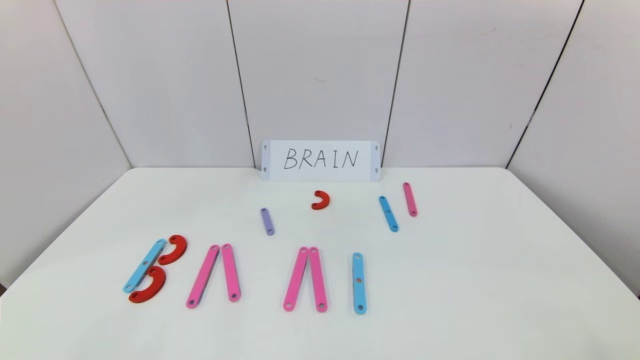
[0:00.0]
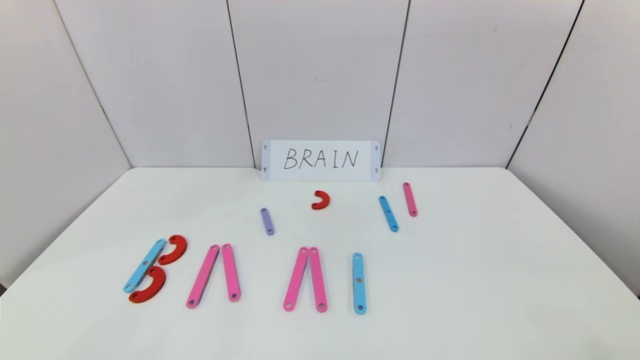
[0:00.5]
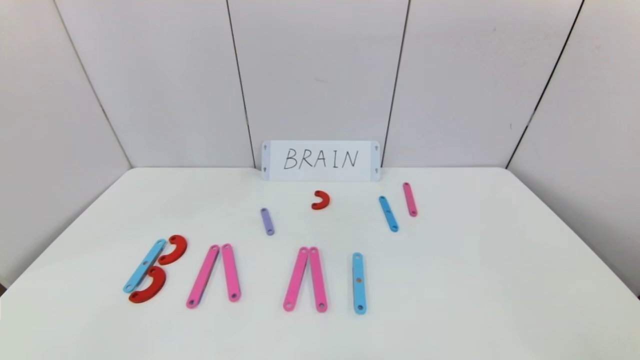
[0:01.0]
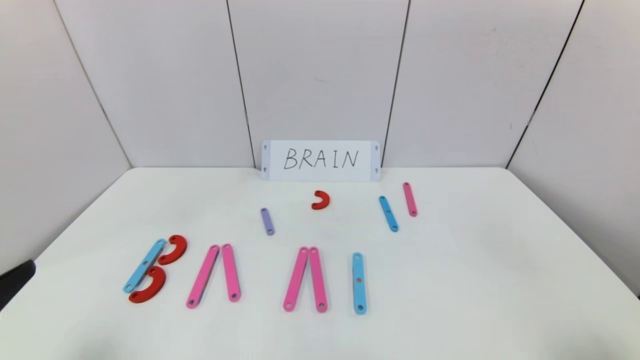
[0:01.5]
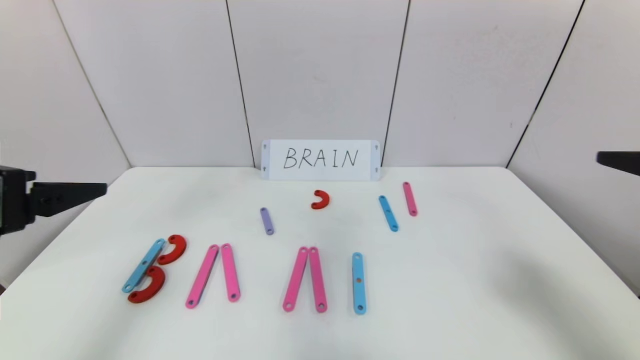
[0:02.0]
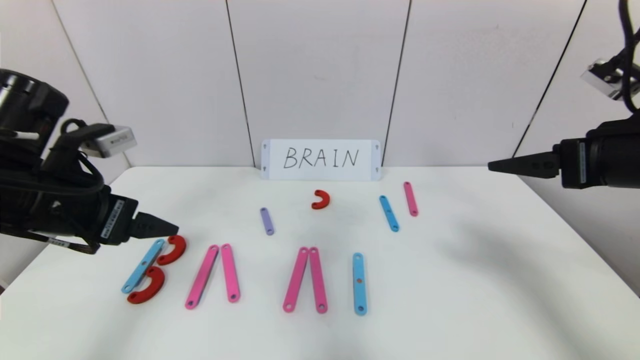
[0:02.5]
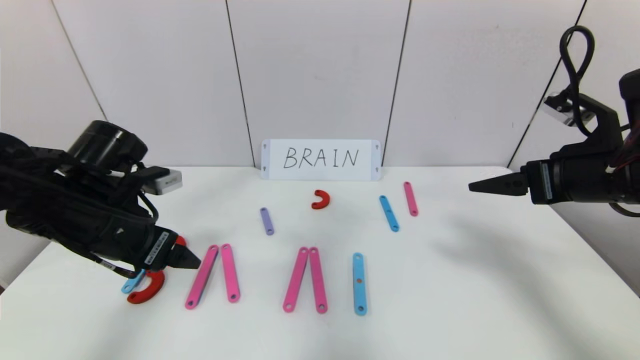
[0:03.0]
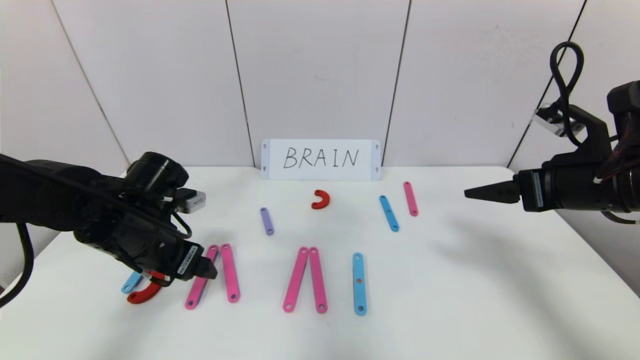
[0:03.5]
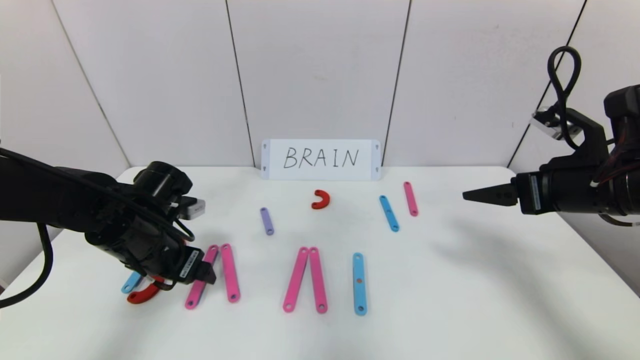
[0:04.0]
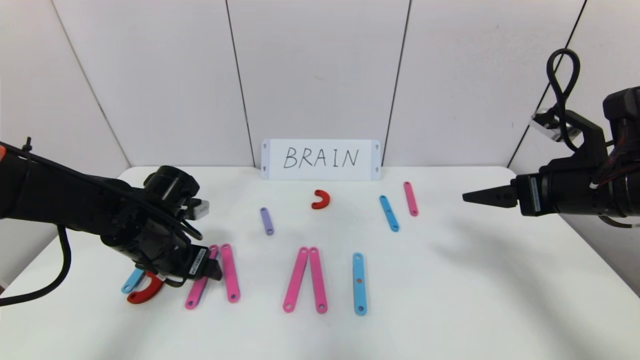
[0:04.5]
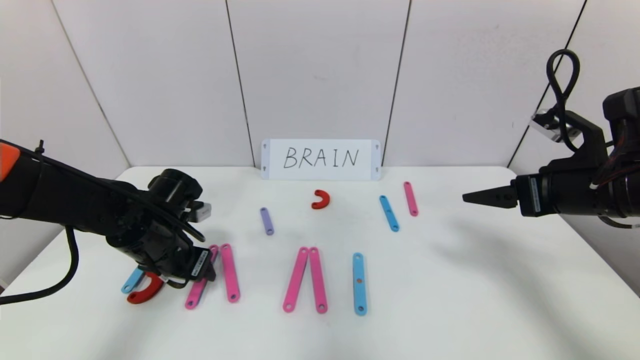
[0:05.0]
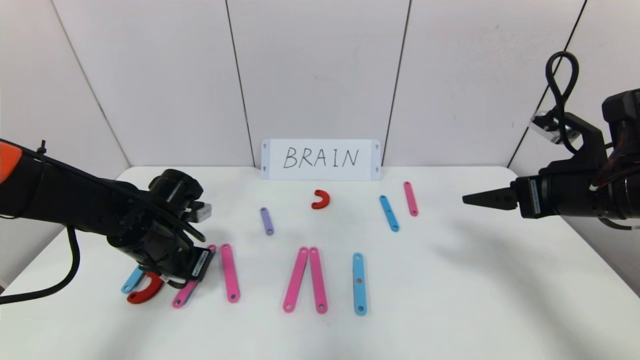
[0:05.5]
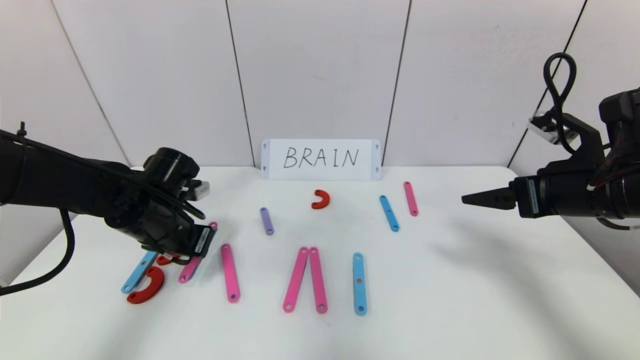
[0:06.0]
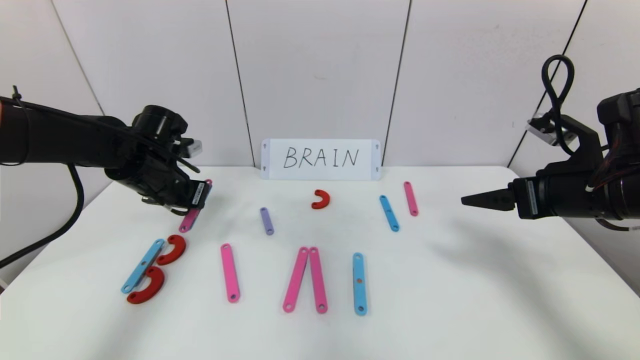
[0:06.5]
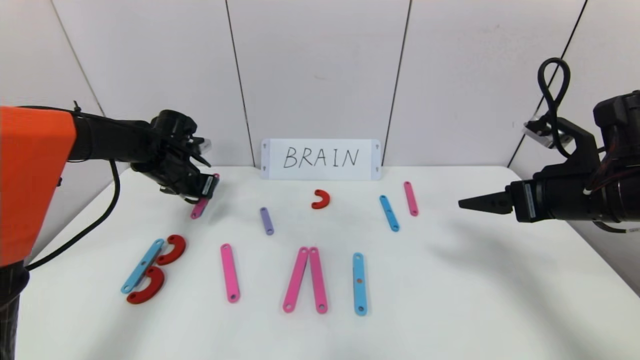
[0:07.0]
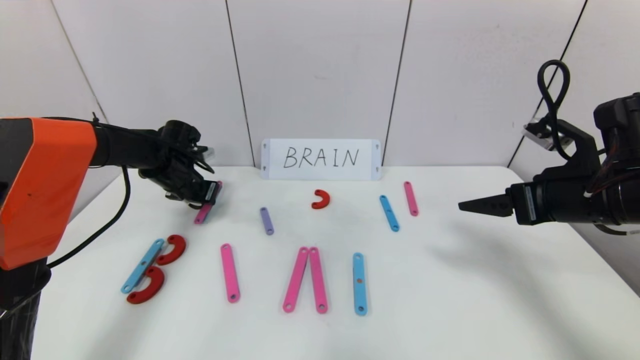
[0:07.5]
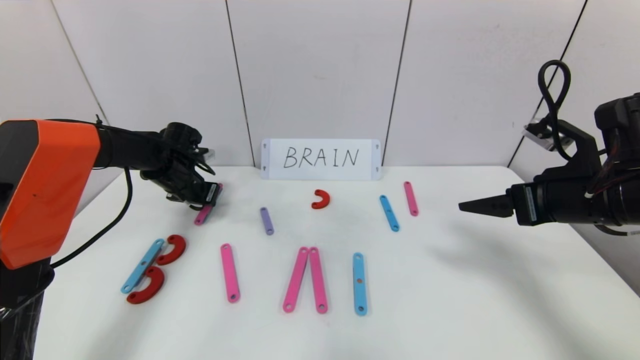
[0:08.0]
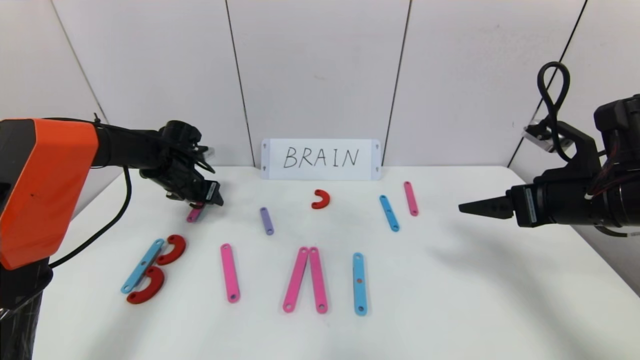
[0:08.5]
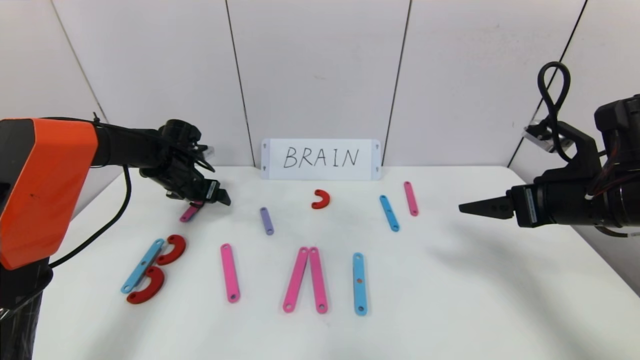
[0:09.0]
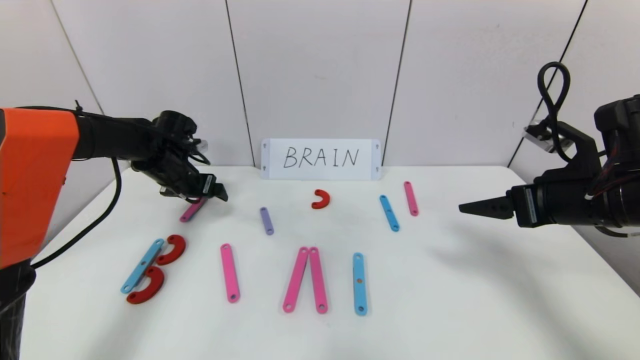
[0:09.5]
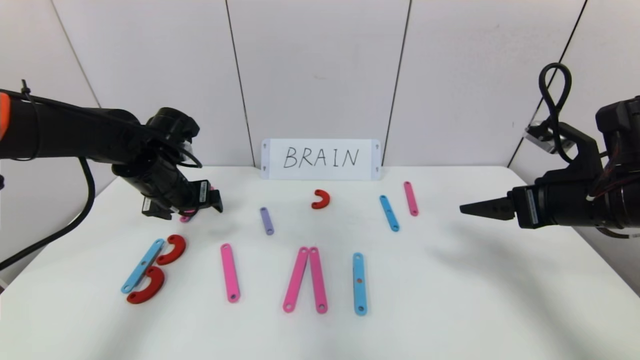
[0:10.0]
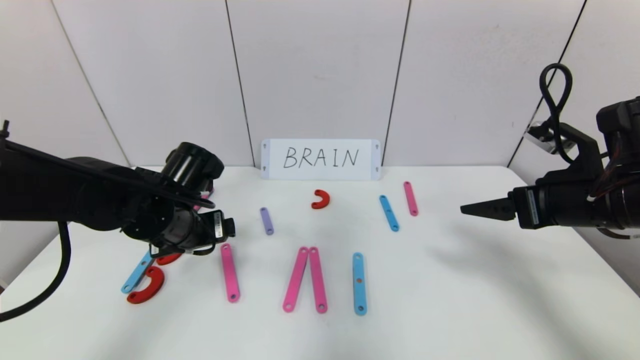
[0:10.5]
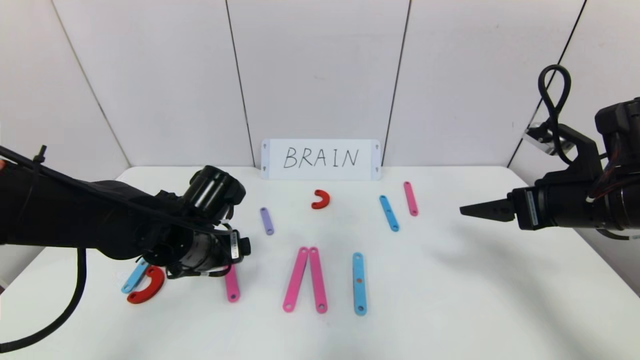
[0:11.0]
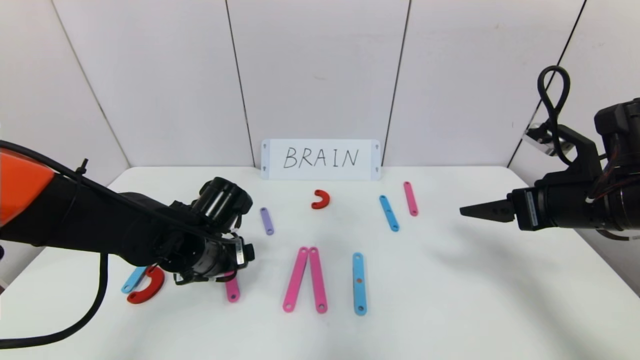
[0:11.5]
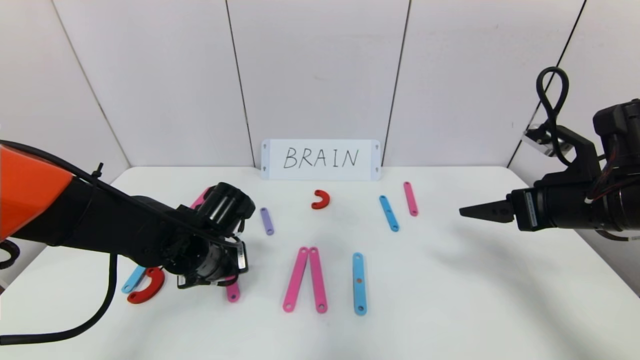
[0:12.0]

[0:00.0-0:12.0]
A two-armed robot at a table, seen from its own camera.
Task of the whole recording: rearrange the word baai as brain.
0:00.0 to 0:02.0: The grippers both shift upward and forward by approximately 30 cm.
0:02.0 to 0:04.0: The left gripper heads downward and forward, covering roughly 20 cm, while the right gripper goes about 15 cm forward and downward.
0:04.0 to 0:06.0: The left gripper closes.
0:06.0 to 0:08.0: The left gripper is displaced forward by roughly 15 cm.
0:08.0 to 0:10.0: The left gripper heads backward and upward, covering about 10 cm, and opens.
0:10.0 to 0:12.0: The left gripper is displaced downward, to the right and backward by about 15 cm, and closes its fingers.

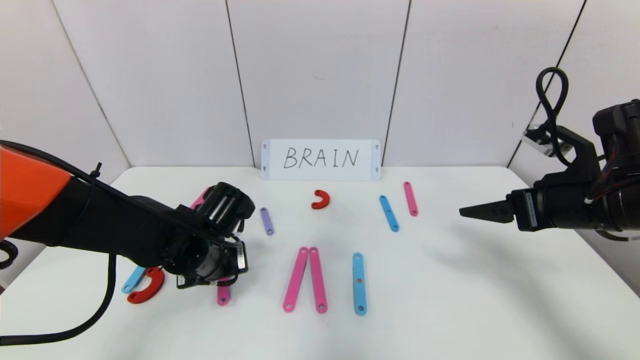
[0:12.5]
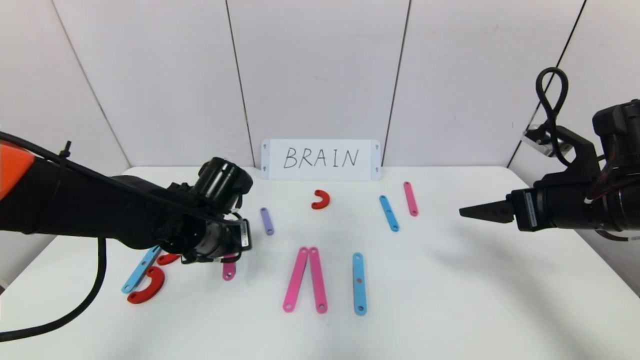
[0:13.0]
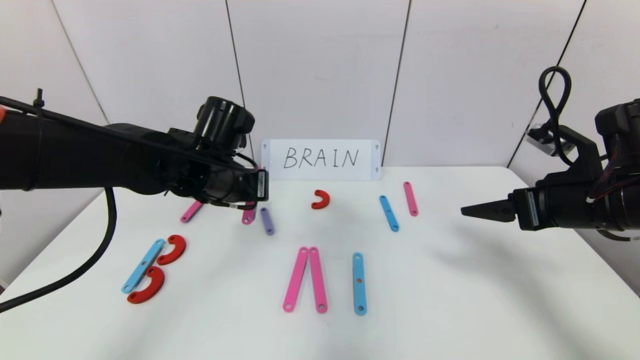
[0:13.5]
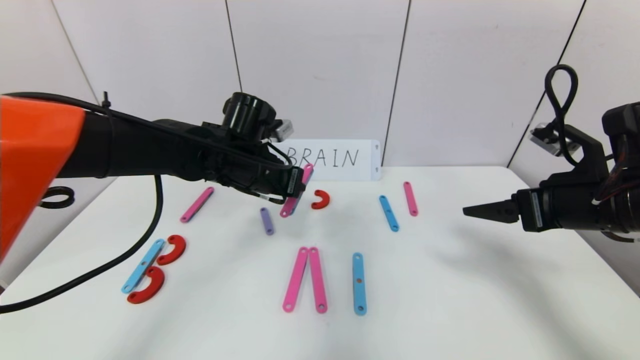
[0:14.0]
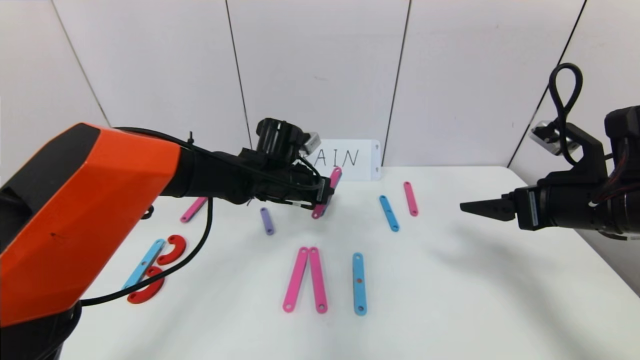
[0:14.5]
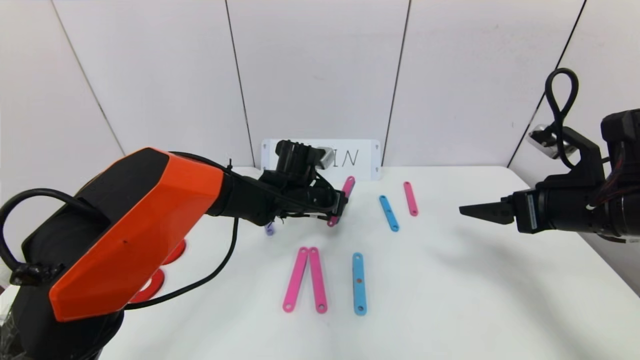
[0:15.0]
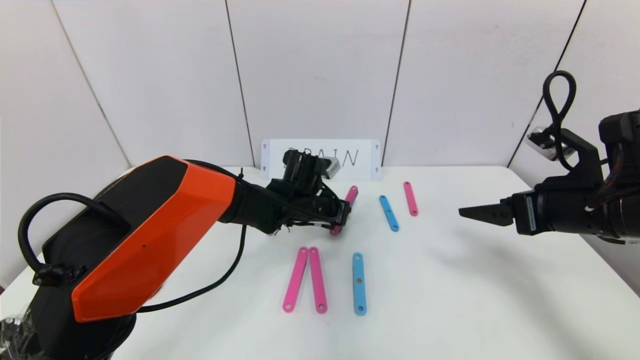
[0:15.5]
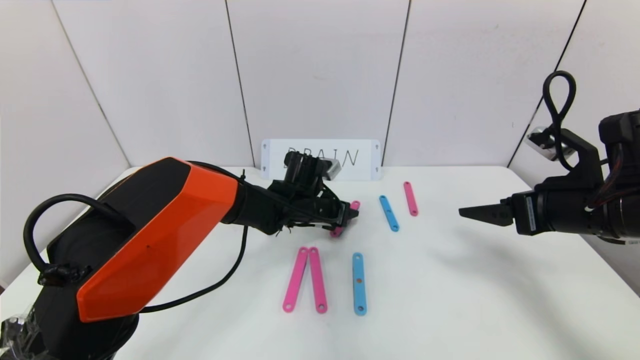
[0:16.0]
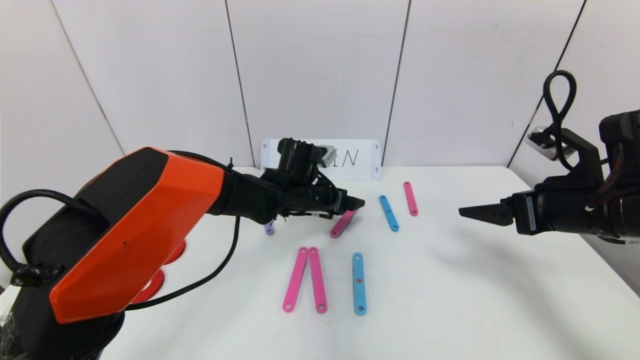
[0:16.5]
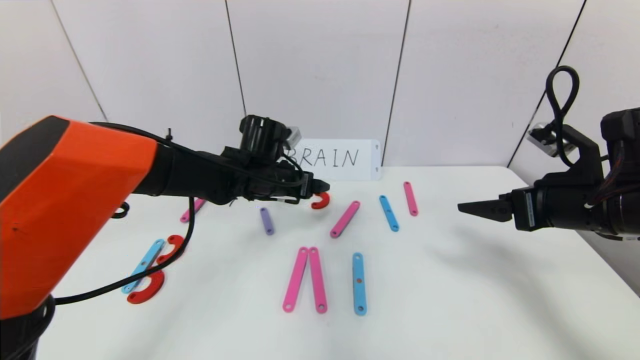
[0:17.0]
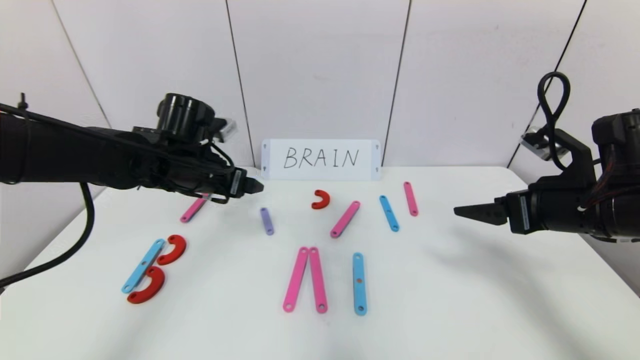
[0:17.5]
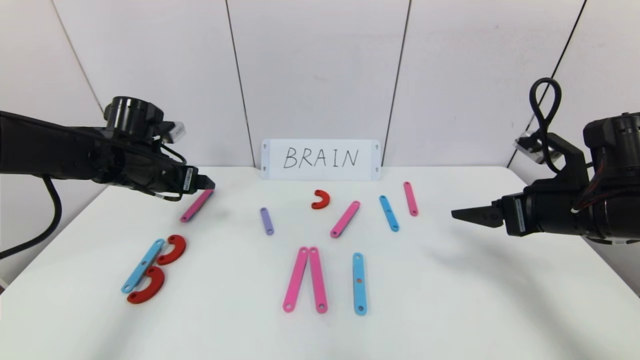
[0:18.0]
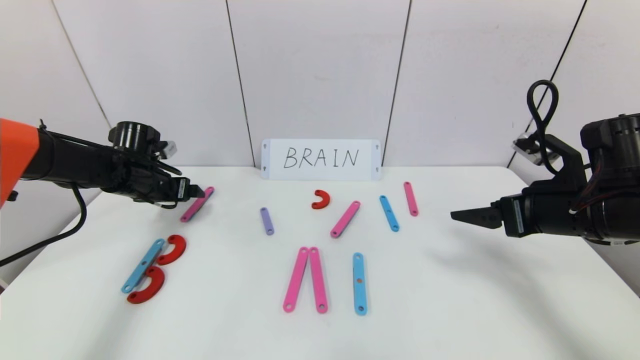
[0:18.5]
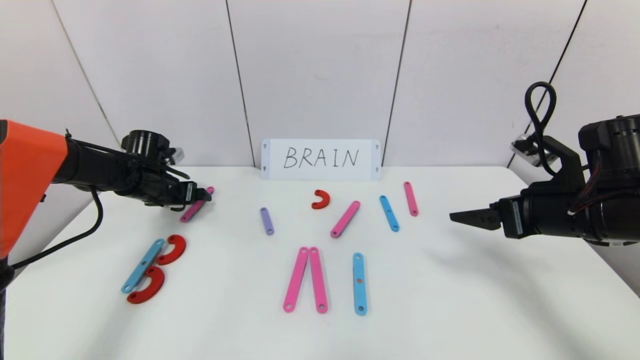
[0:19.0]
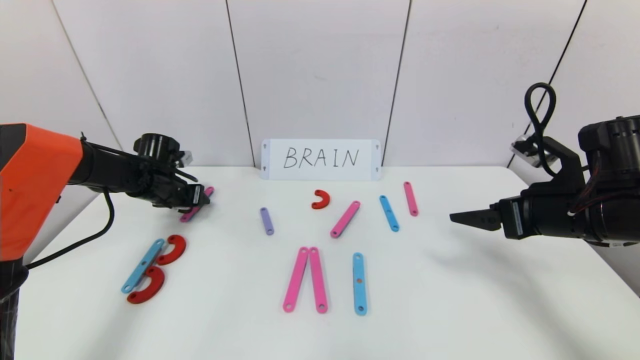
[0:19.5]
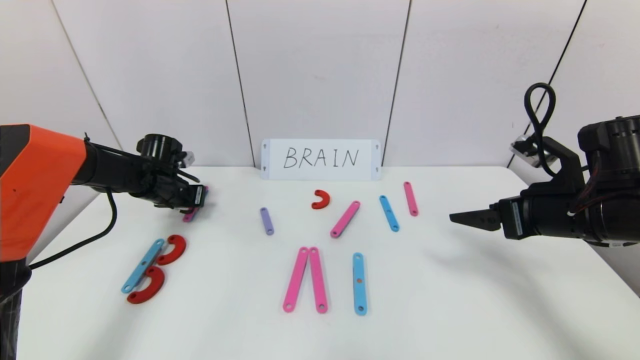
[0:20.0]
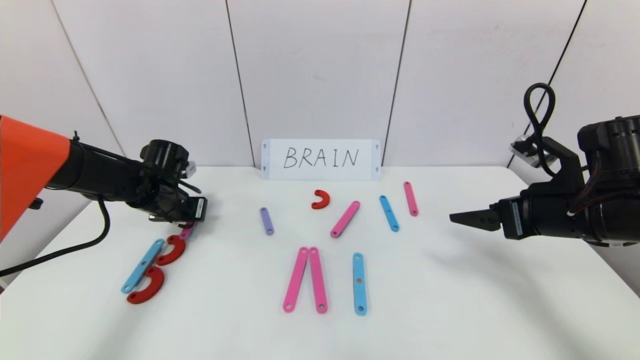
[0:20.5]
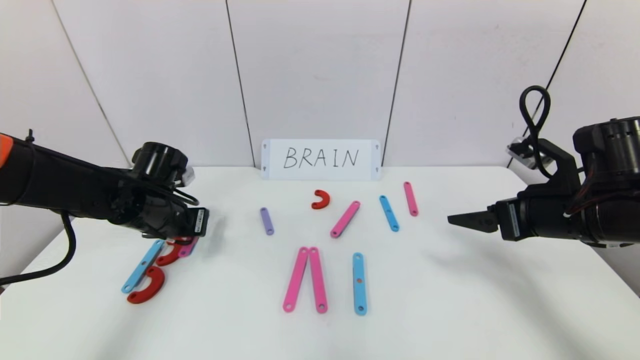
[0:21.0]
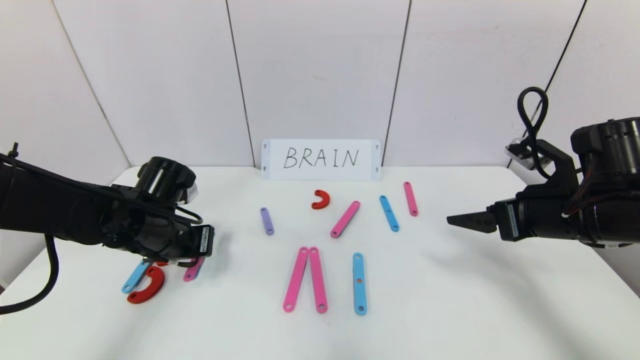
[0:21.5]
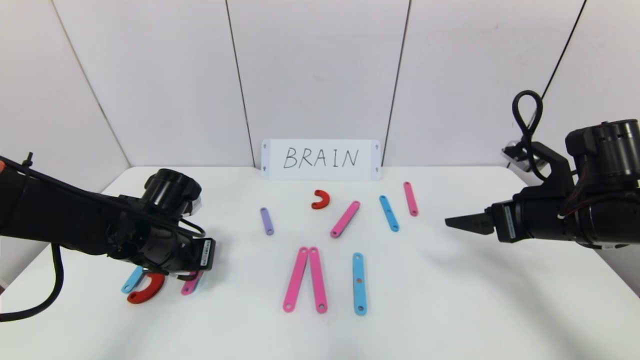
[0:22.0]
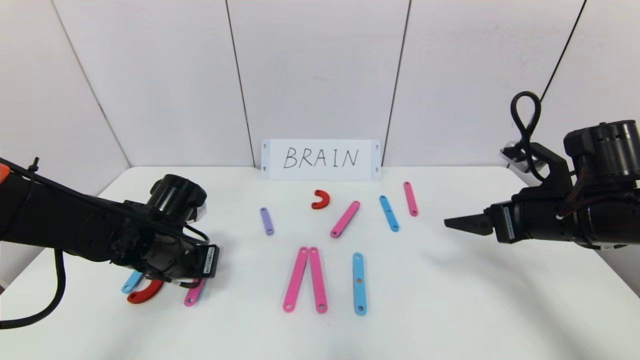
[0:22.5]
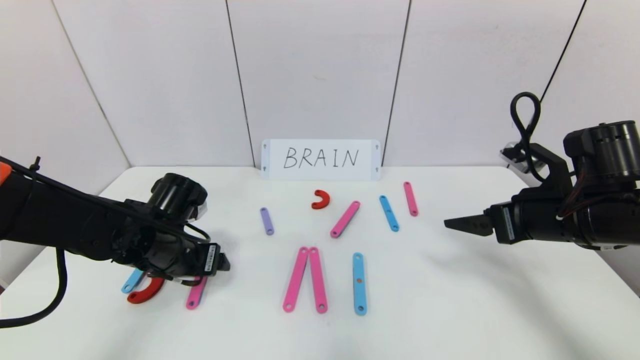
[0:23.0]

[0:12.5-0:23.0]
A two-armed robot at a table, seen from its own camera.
Task of the whole recording: rearrange the word baai as brain.
Step, 0:12.5 to 0:16.0: Disassemble the second character A.
0:12.5 to 0:14.5: The left gripper travels forward, to the right and upward by some 15 cm.
0:14.5 to 0:16.5: The left gripper opens up.
0:16.5 to 0:19.0: The left gripper shifts about 30 cm to the left.
0:19.0 to 0:21.0: The left gripper shifts approximately 15 cm backward and to the right, and closes.
0:21.0 to 0:23.0: The left gripper changes place by approximately 5 cm, and opens up.
